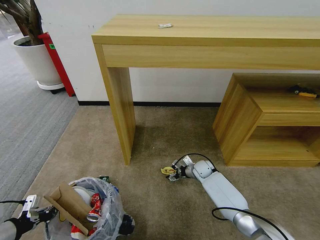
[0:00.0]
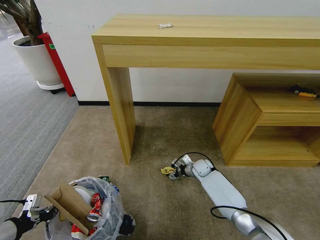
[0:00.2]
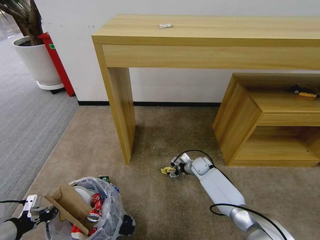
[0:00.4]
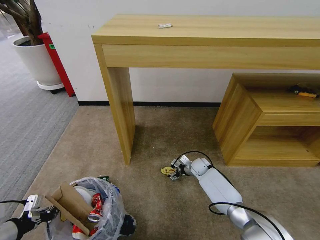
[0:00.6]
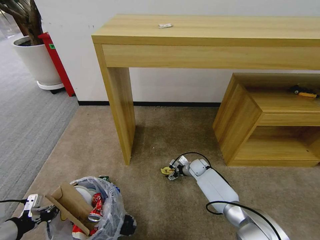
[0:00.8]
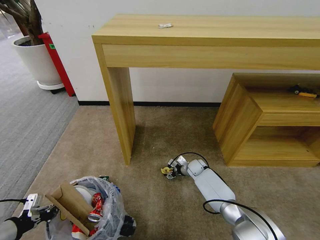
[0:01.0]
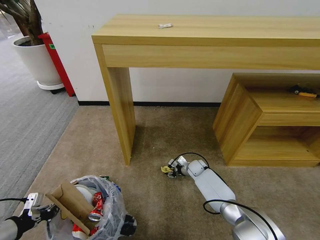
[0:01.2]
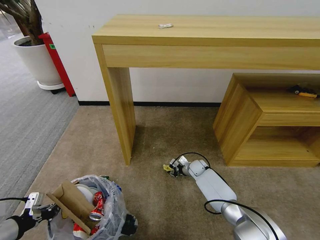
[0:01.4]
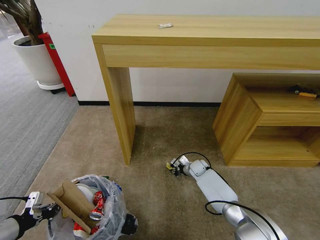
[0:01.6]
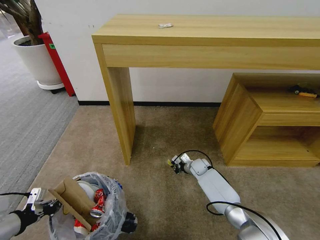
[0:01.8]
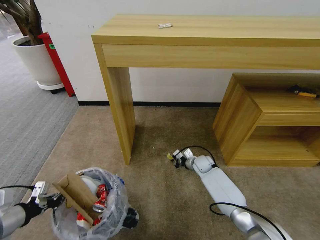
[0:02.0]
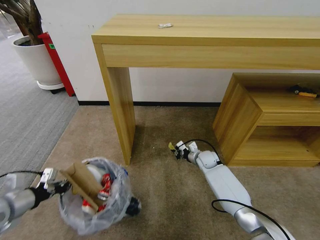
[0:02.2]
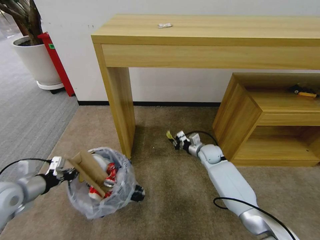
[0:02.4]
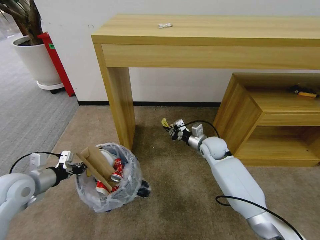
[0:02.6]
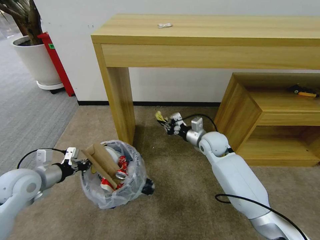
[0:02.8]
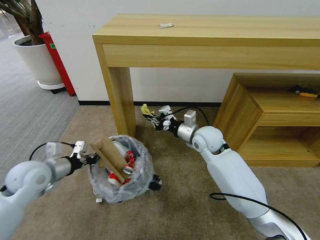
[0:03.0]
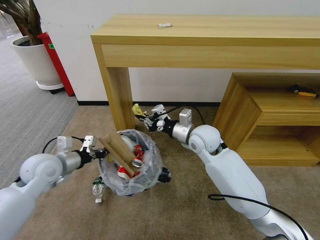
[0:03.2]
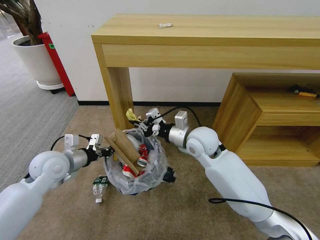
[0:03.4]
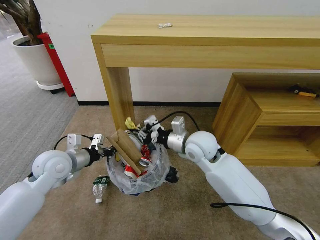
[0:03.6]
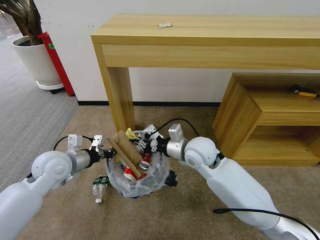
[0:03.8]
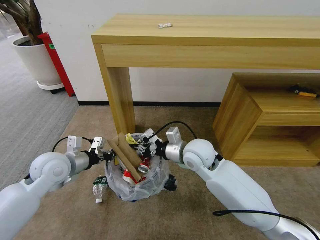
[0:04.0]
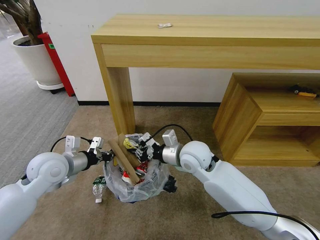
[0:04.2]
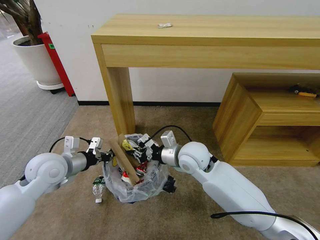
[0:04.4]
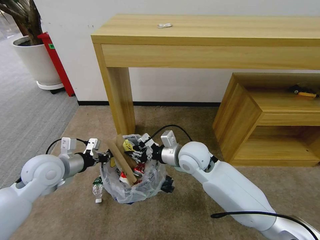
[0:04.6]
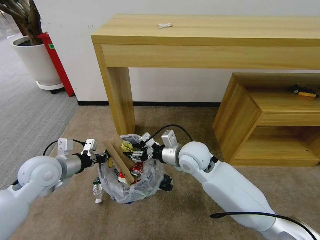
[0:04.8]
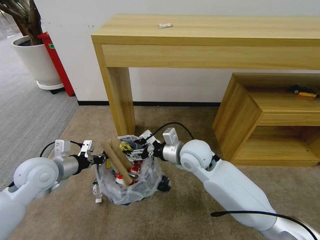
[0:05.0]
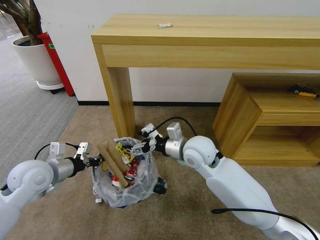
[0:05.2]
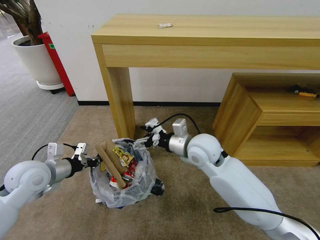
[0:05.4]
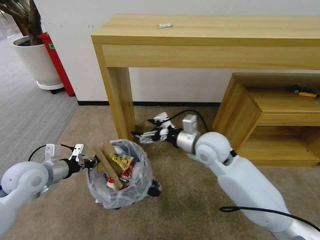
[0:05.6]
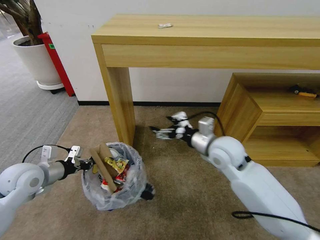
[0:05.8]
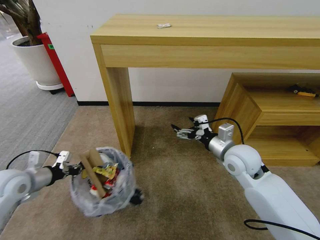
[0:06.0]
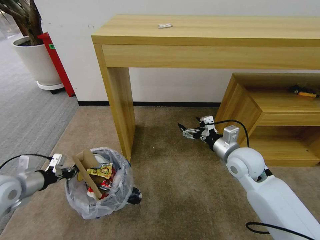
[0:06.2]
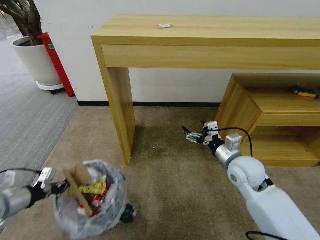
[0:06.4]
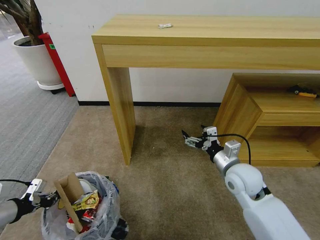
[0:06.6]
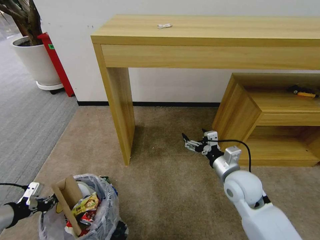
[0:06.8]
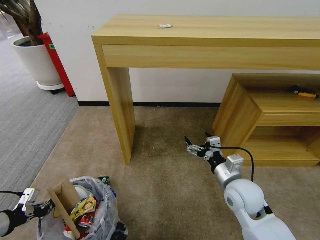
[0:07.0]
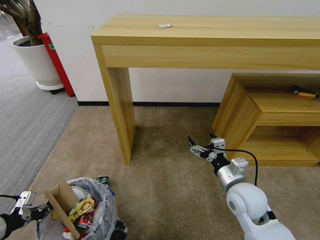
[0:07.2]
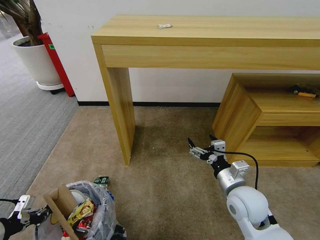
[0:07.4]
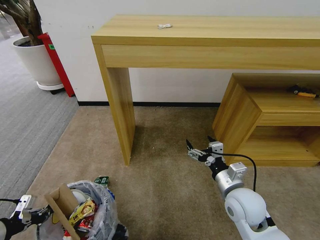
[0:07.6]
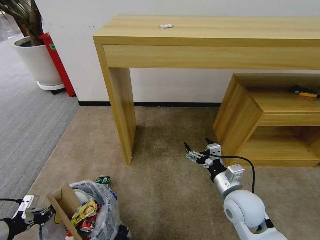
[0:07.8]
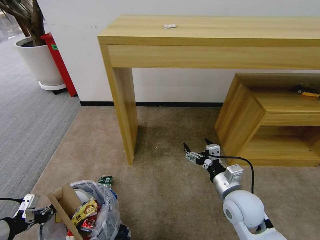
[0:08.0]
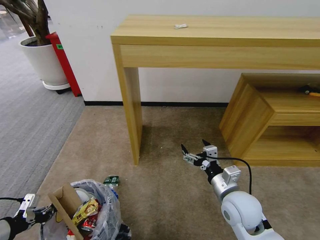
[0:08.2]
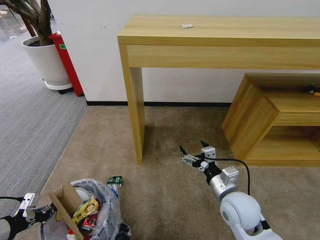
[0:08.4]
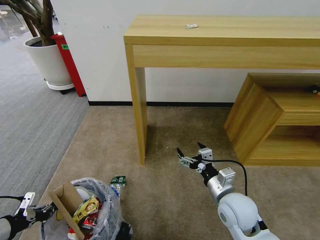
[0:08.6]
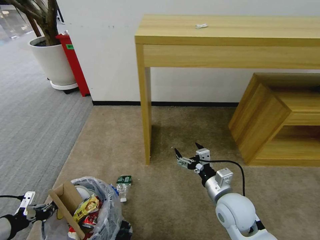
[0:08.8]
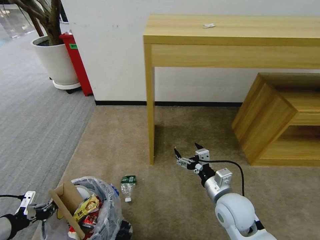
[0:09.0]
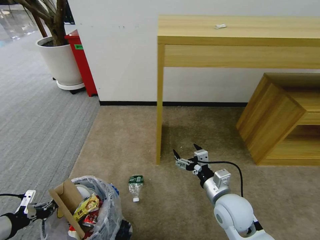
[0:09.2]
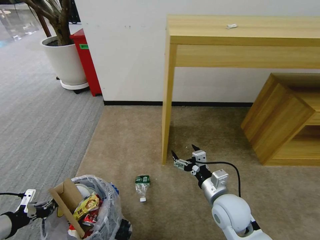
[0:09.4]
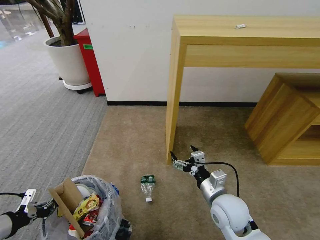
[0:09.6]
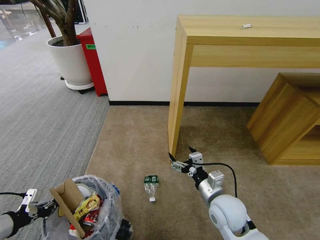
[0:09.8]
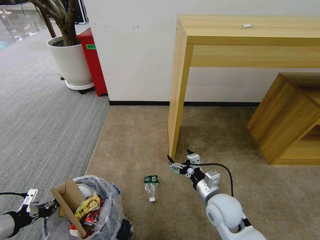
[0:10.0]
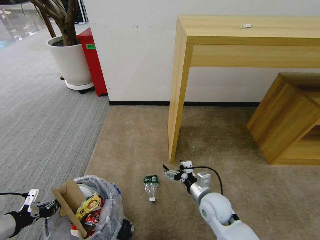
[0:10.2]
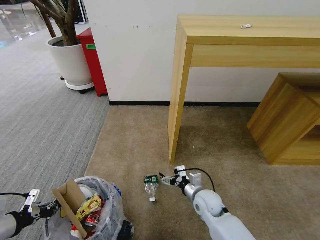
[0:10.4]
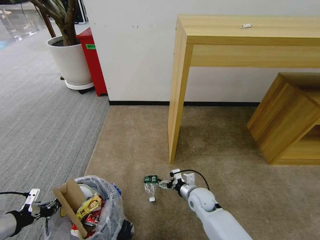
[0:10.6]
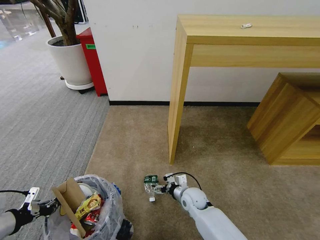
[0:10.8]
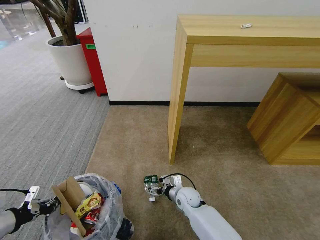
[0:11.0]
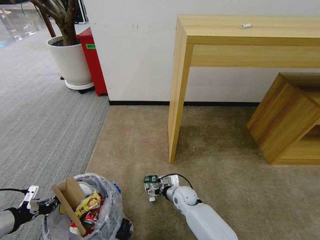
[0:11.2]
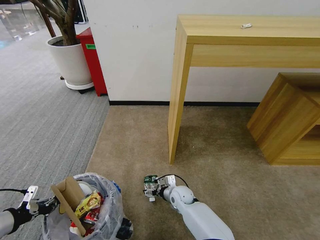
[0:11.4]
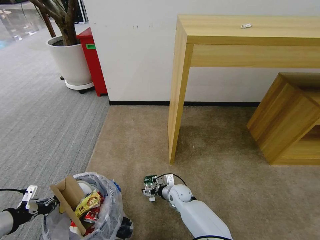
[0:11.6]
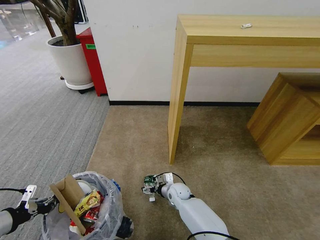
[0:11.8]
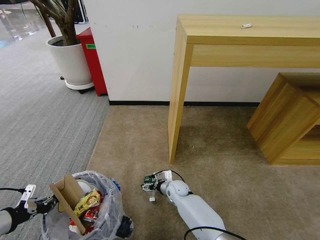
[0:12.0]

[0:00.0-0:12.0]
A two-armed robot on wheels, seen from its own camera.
Task of the whole recording: Pick up the trash bin and place the garbage on the floor into it.
0:00.0 to 0:01.6: The right gripper closes.
0:01.6 to 0:03.0: The left gripper goes some 20 cm forward and to the right; the right gripper is displaced upward by approximately 30 cm.
0:03.0 to 0:04.4: The right gripper heads backward and to the left, covering some 10 cm. The left gripper is displaced to the right by about 5 cm.
0:04.4 to 0:06.0: The left gripper travels to the left by roughly 10 cm; the right gripper moves to the right, some 15 cm, and opens its fingers.
0:06.0 to 0:07.6: The left gripper heads backward, covering approximately 15 cm. The right gripper shifts roughly 15 cm backward and downward.
0:09.0 to 0:10.4: The right gripper is displaced downward and forward by some 15 cm.
0:10.4 to 0:12.0: The right gripper travels downward, to the left and forward by approximately 15 cm.

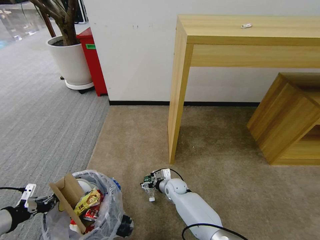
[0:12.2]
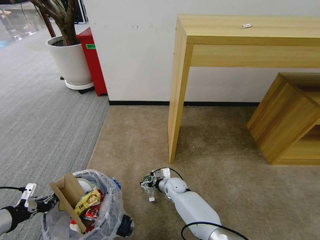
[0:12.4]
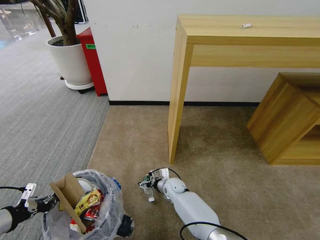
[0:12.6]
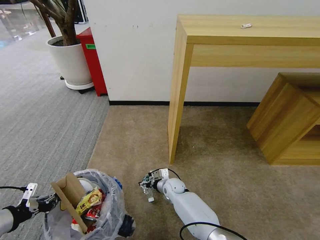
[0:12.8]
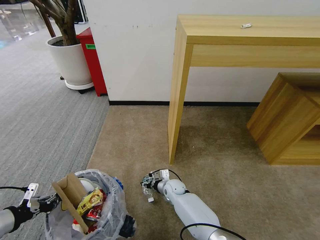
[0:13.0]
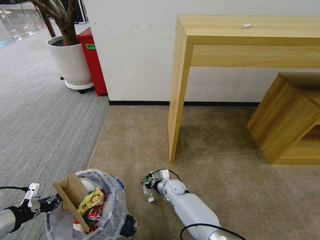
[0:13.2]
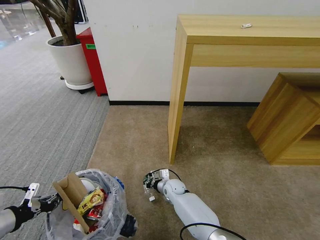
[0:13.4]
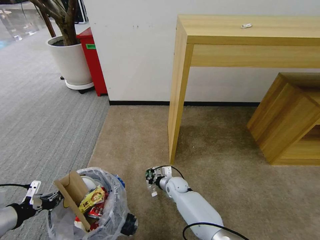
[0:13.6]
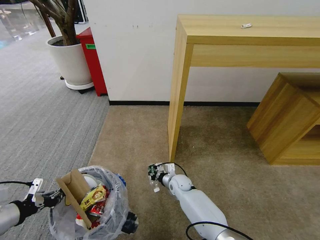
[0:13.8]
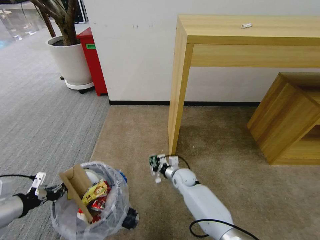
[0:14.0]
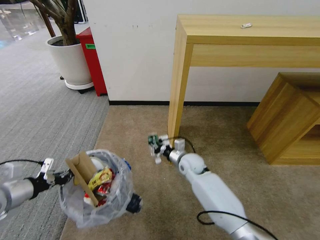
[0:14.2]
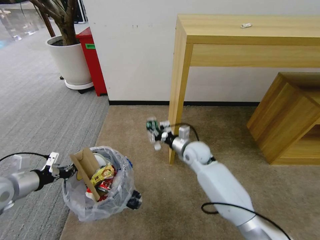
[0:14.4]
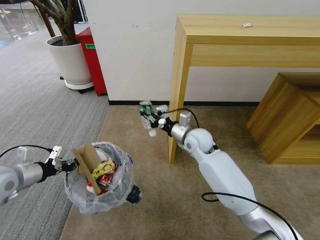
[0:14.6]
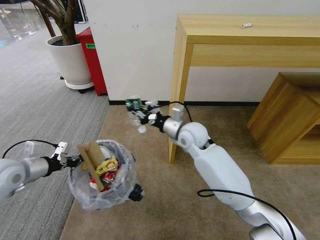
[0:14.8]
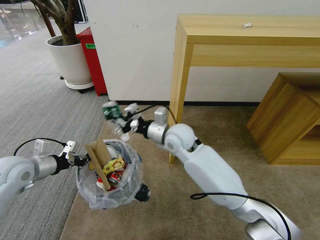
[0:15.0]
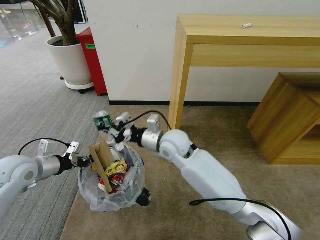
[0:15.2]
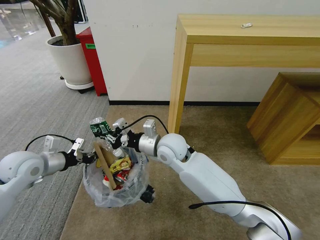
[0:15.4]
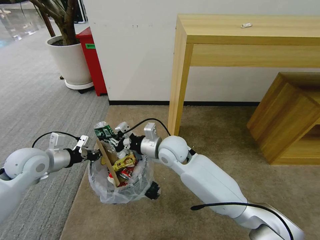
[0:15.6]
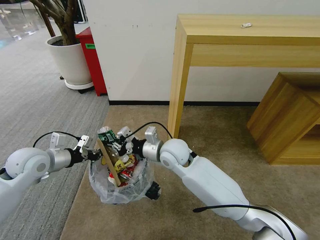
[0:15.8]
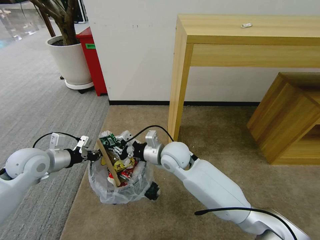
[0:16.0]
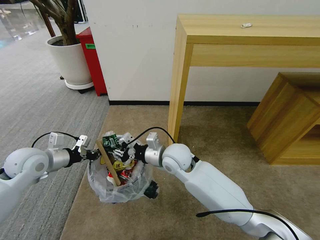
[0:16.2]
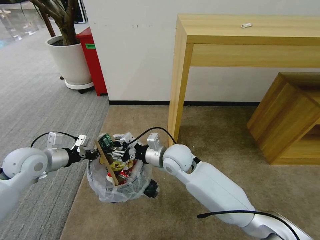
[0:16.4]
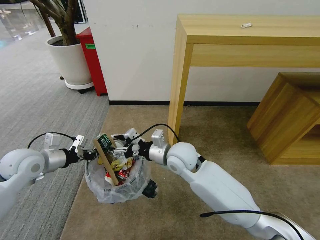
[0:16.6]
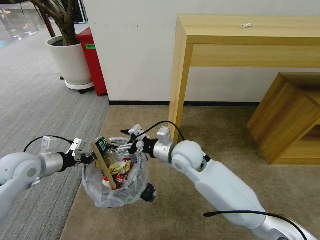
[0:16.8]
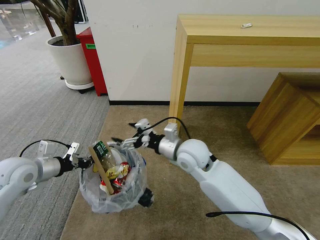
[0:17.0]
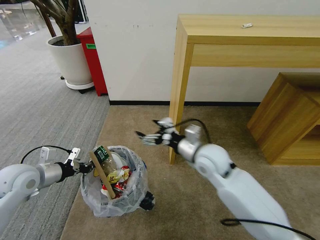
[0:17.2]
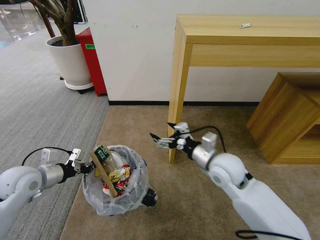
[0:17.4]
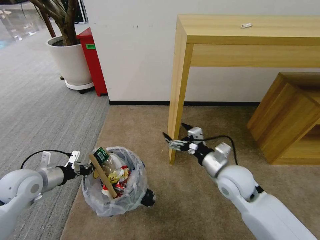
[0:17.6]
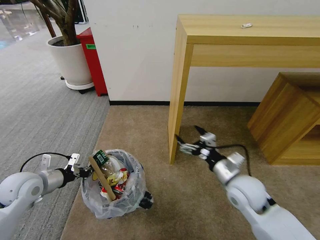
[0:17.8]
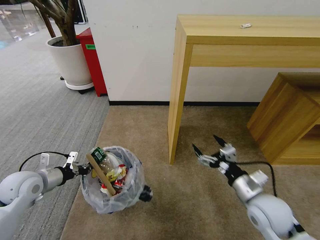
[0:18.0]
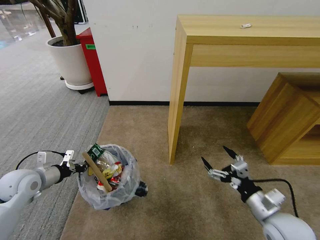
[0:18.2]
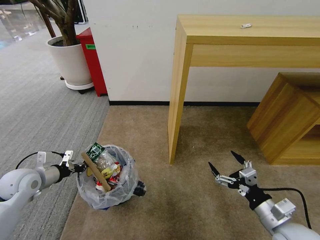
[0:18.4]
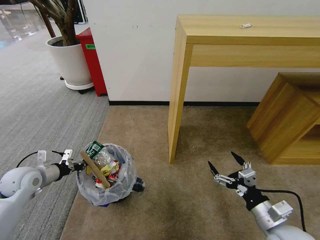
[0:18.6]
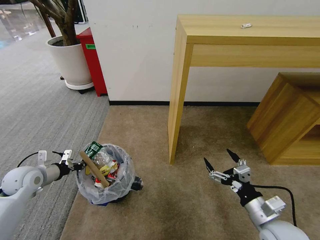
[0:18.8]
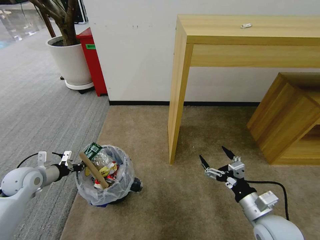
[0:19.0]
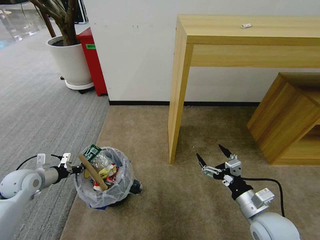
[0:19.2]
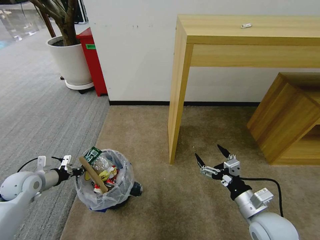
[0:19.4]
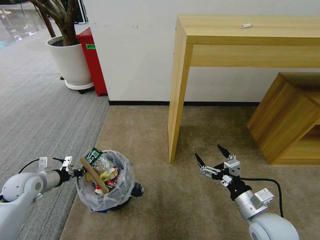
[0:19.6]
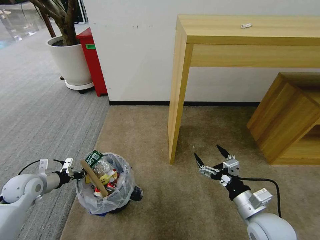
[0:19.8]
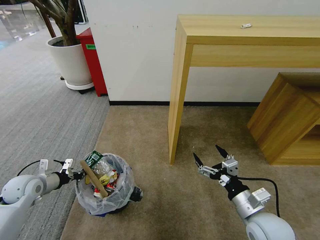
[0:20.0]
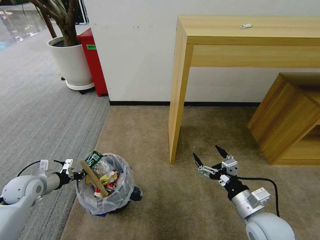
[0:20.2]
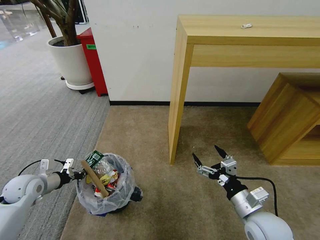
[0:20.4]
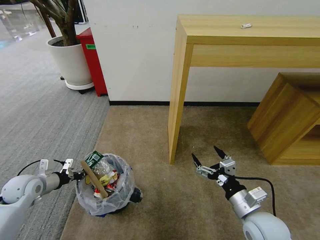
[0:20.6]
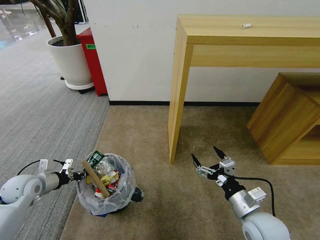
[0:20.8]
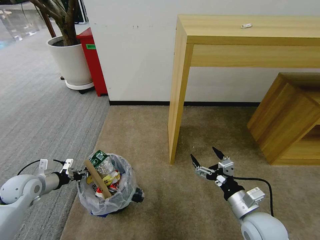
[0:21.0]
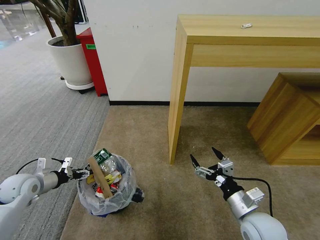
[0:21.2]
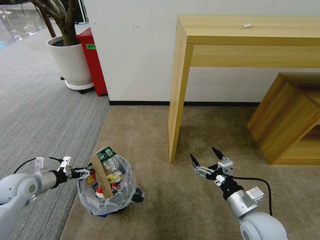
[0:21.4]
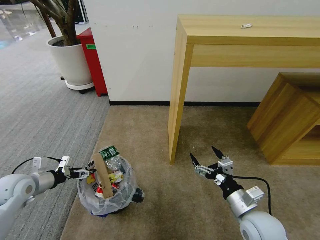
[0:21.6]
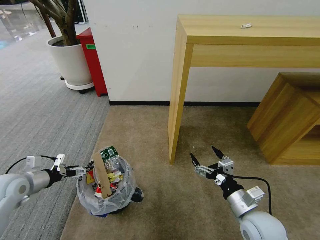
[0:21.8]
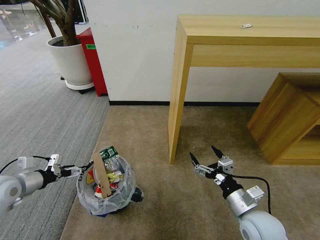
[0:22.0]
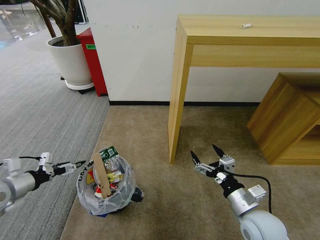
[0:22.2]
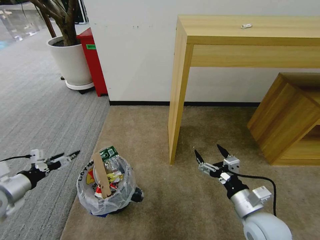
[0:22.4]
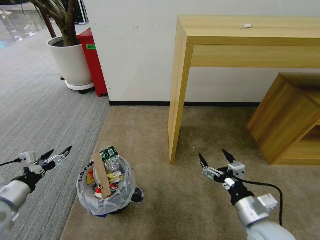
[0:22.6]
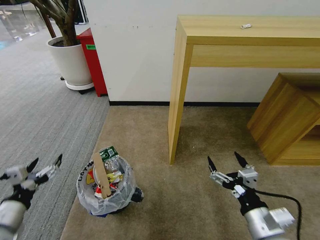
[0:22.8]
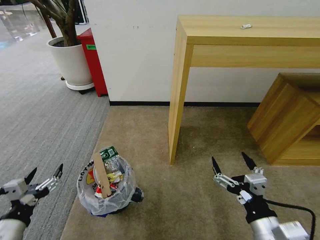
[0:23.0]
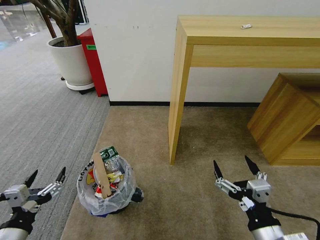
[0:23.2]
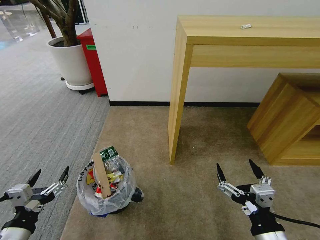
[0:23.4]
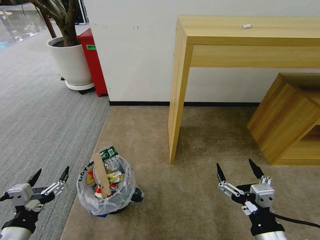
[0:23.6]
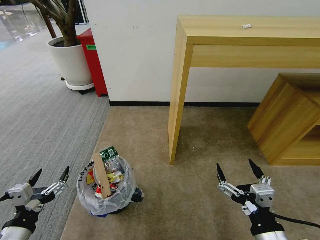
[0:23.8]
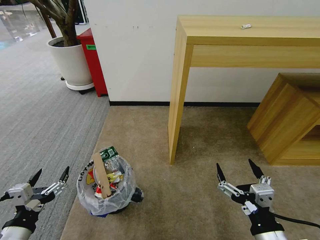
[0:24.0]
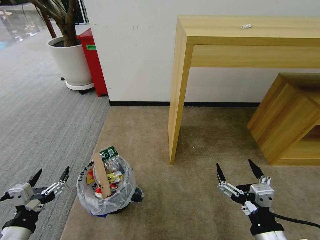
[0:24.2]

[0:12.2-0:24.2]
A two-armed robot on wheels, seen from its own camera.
Task of the whole recording: Pick up the trash bin and place the garbage on the floor into it.
0:12.2 to 0:13.8: The right gripper closes.
0:13.8 to 0:15.2: The right gripper is displaced upward by about 30 cm, while the left gripper travels forward by approximately 15 cm.
0:15.2 to 0:16.6: The right gripper opens.
0:16.6 to 0:18.2: The right gripper heads to the right and backward, covering approximately 30 cm. The left gripper heads downward, covering approximately 5 cm.
0:18.2 to 0:19.8: The left gripper is displaced downward by about 5 cm.
0:19.8 to 0:21.2: The left gripper opens up.
0:21.2 to 0:22.6: The left gripper moves backward, some 10 cm.
0:22.6 to 0:24.2: The left gripper shifts approximately 15 cm backward and to the right. Meanwhile the right gripper shifts approximately 10 cm backward.
